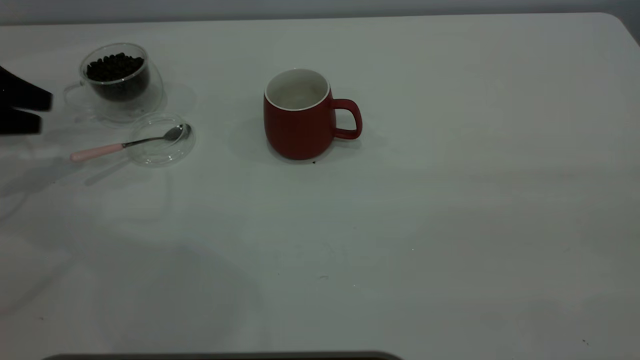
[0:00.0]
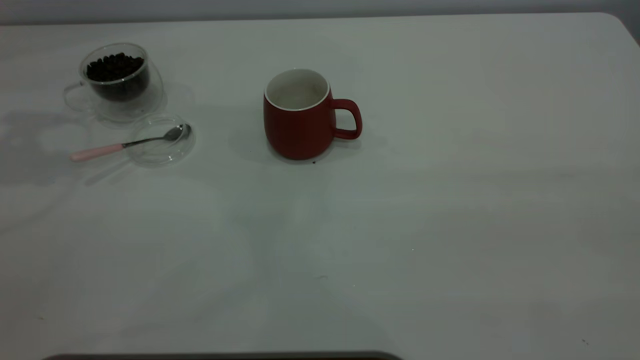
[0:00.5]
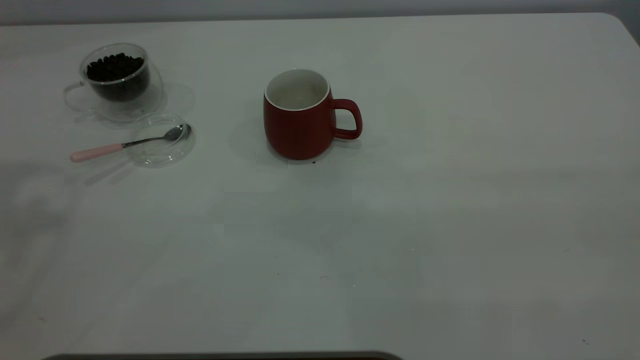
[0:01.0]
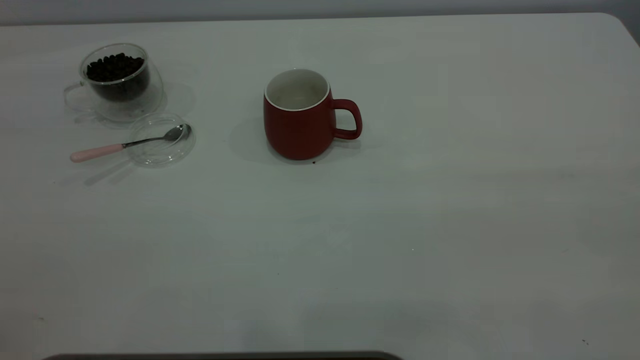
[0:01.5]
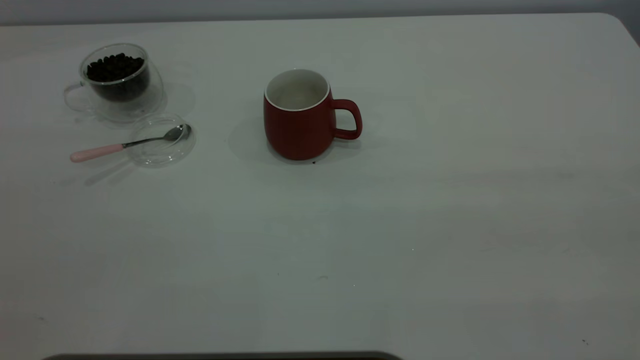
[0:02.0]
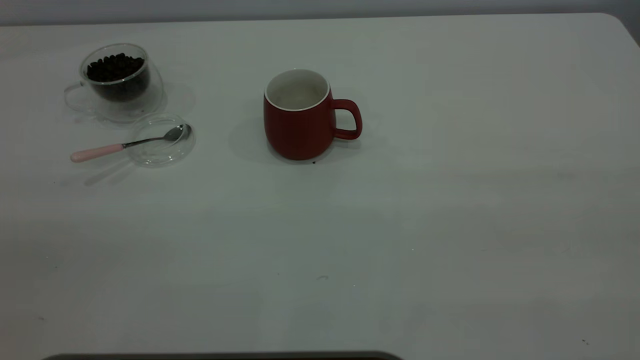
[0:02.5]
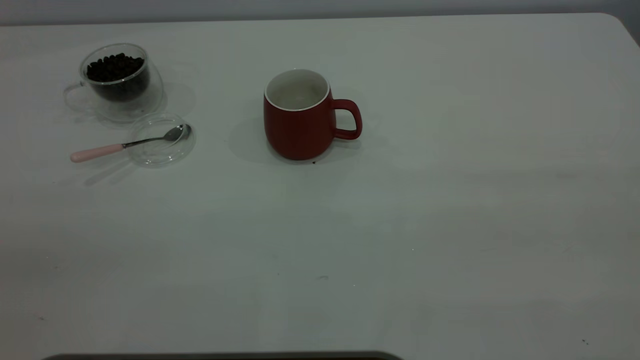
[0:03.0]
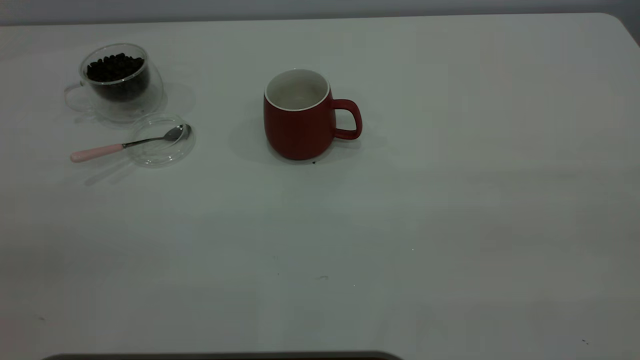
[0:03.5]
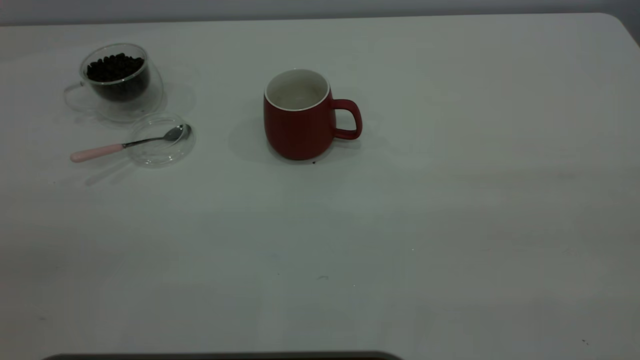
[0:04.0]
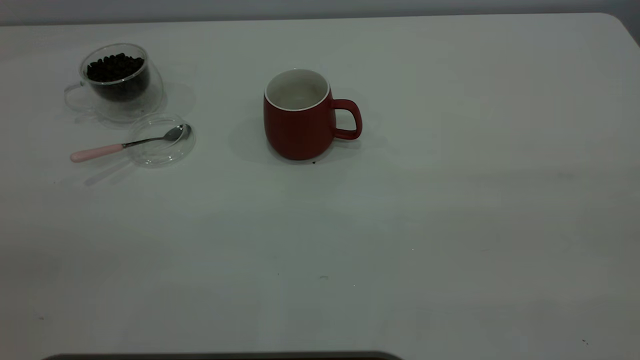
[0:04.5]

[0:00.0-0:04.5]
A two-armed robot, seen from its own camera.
Task of the whole recording: the right gripper place the red cup in the center of the table, the left gripper take the pink spoon from the cup lid and scoop out the coffee beans from the coffee cup and put them into the red cup, the left gripper put the spoon back into the cup lid.
0:00.0 to 0:02.0: The left gripper is displaced backward, upward and to the right by about 50 cm.
